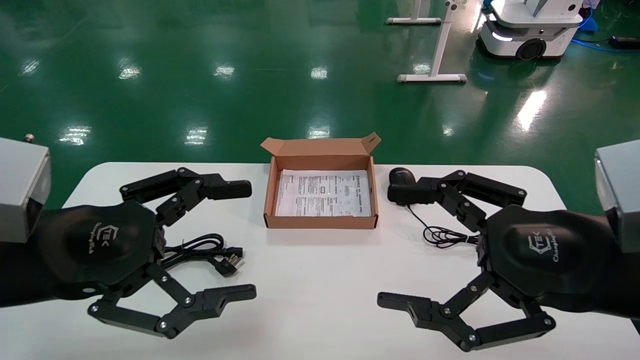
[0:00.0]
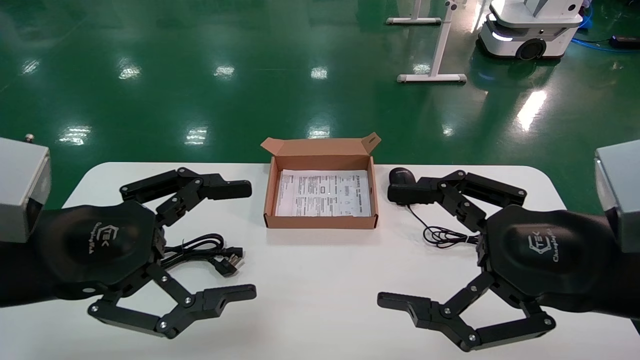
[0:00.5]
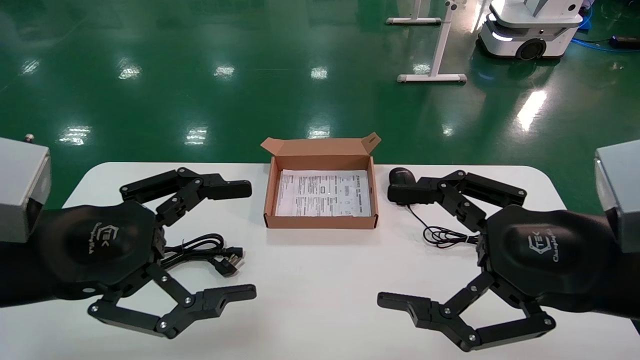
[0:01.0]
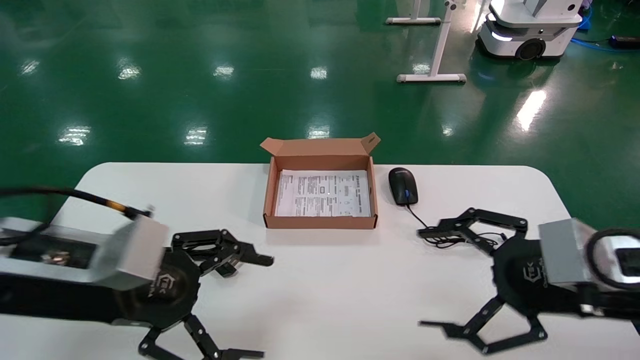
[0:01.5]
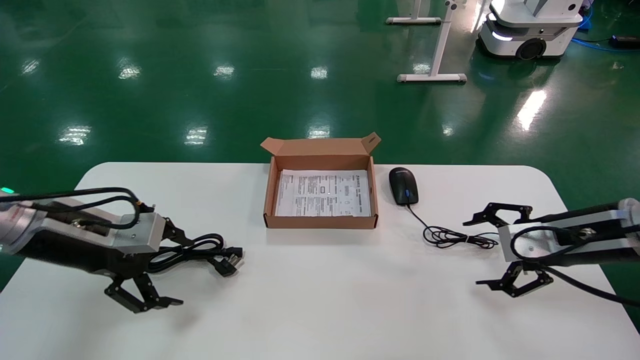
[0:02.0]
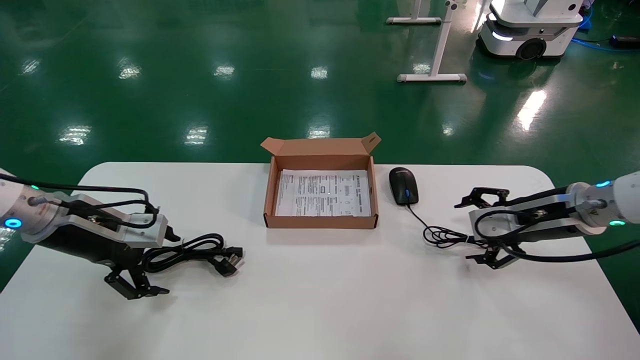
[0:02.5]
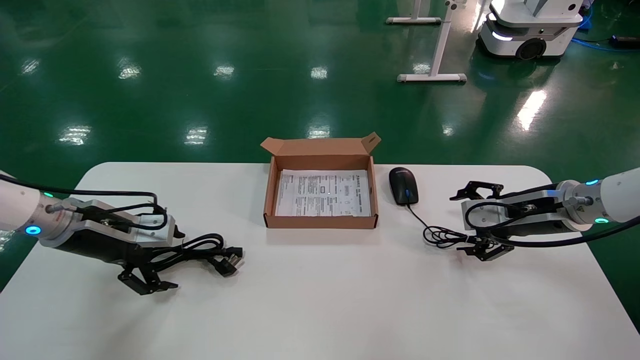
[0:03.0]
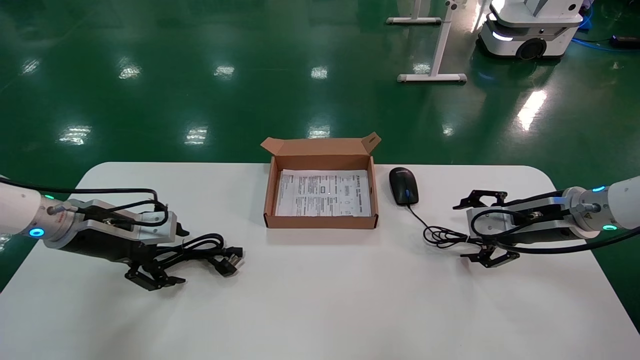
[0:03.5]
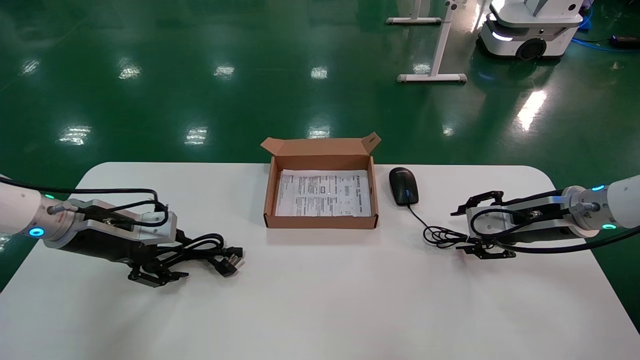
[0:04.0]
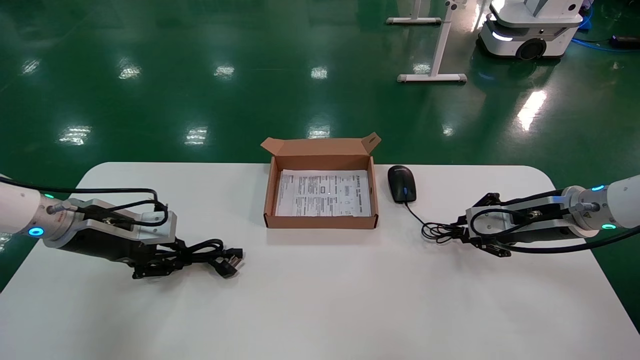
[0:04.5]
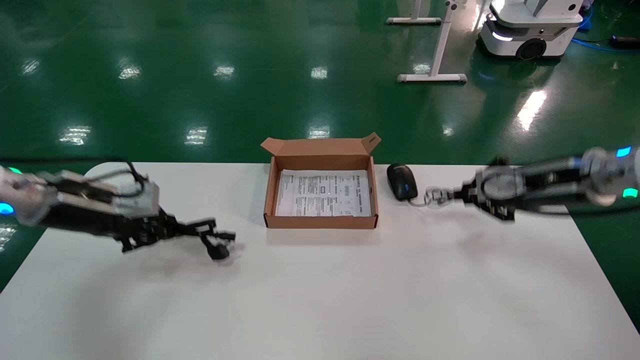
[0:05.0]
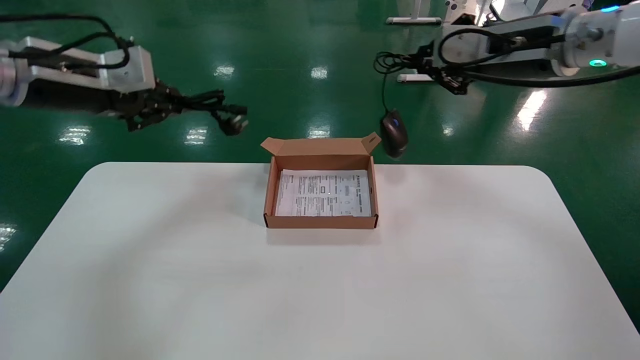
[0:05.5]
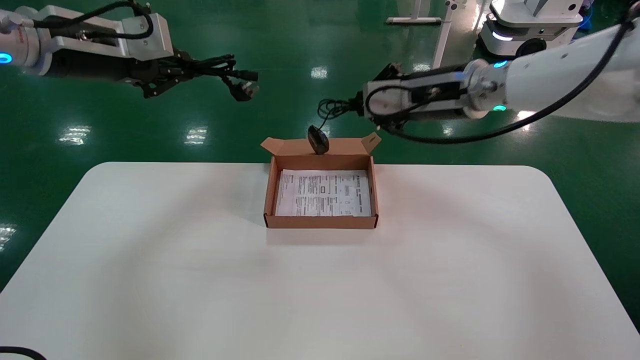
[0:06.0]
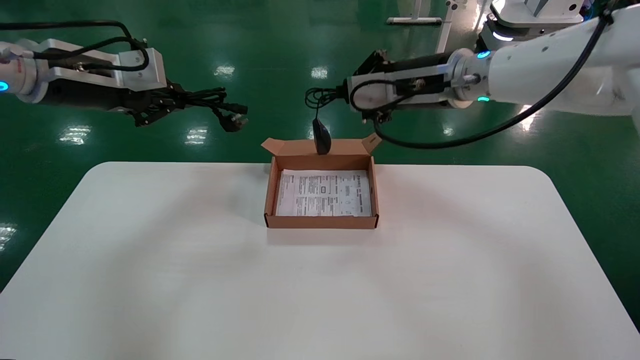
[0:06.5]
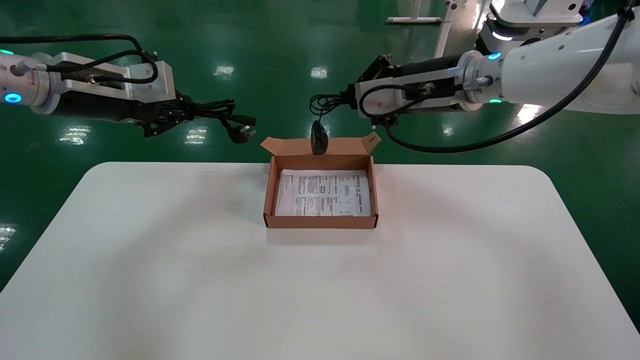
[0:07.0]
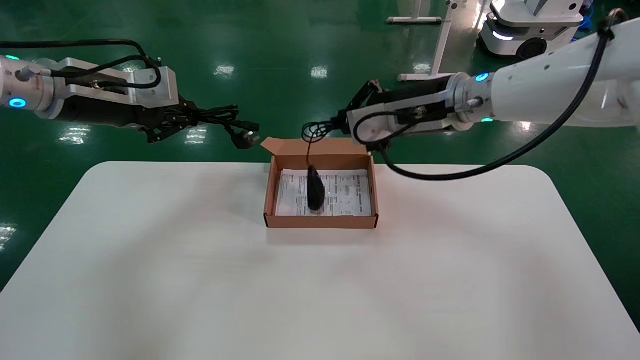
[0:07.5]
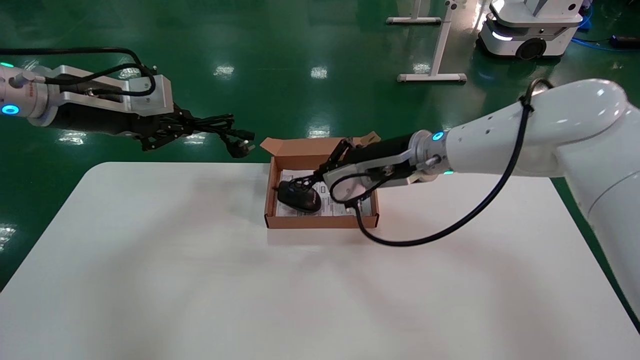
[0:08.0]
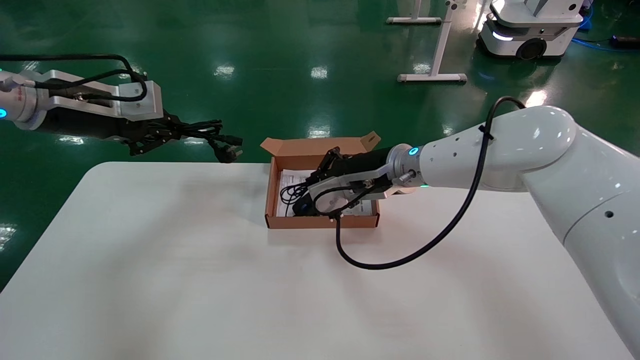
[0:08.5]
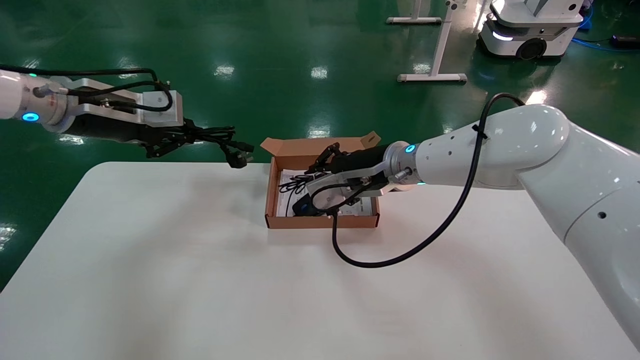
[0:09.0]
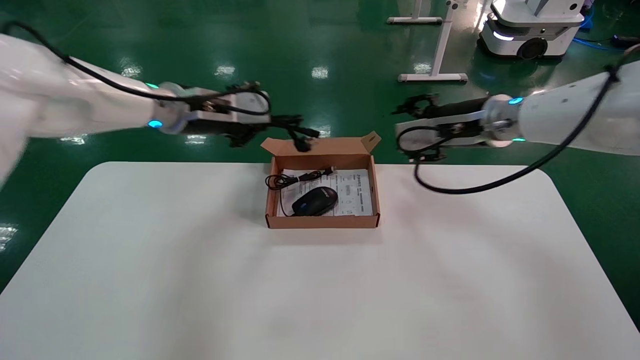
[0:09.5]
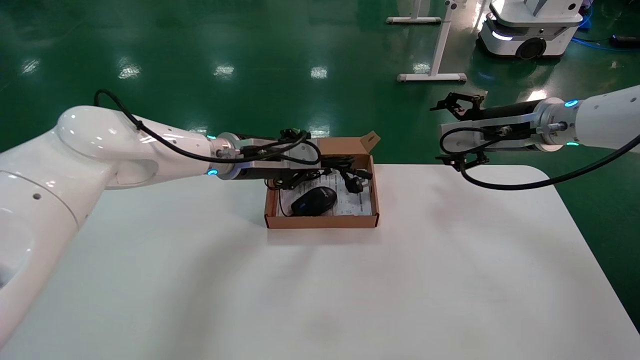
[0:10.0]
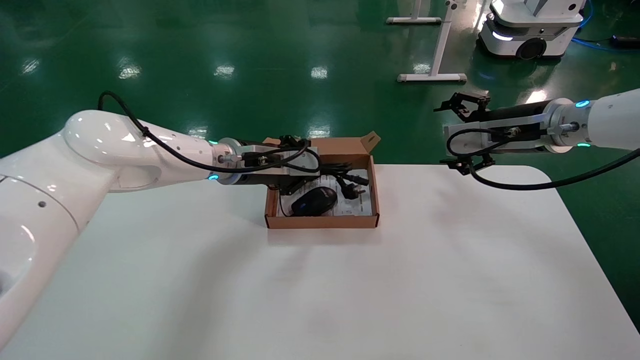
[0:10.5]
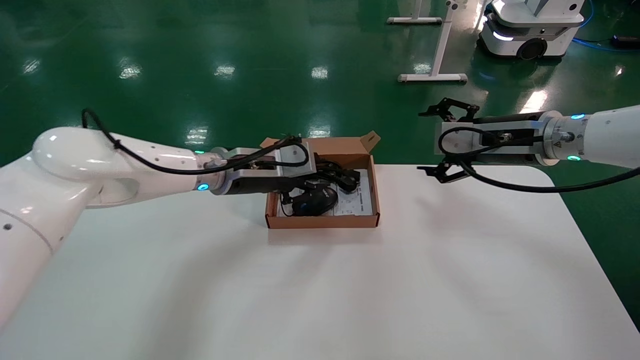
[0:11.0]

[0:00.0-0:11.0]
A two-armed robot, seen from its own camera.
Step, 0:02.0 to 0:04.5: Grab and lift both the mouse and power cord from the accessory packaging area at the same time.
Step, 0:05.0 to 0:10.5: Place the mouse and power cord into the box.
0:00.0 to 0:02.0: The right gripper goes approximately 20 cm forward and to the right, while the left gripper travels forward and to the left by roughly 15 cm.
0:02.0 to 0:03.5: The grippers both shift forward by about 5 cm.
0:03.5 to 0:05.5: The left gripper travels upward by some 20 cm, and closes its fingers. The right gripper heads upward and to the left, covering about 20 cm, and closes.
0:05.5 to 0:07.5: The right gripper is displaced to the left and downward by roughly 10 cm.
0:07.5 to 0:09.0: The right gripper goes some 10 cm downward and to the left.
0:09.0 to 0:11.0: The left gripper travels to the right and downward by about 20 cm; the right gripper shifts roughly 20 cm to the right, and opens its fingers.

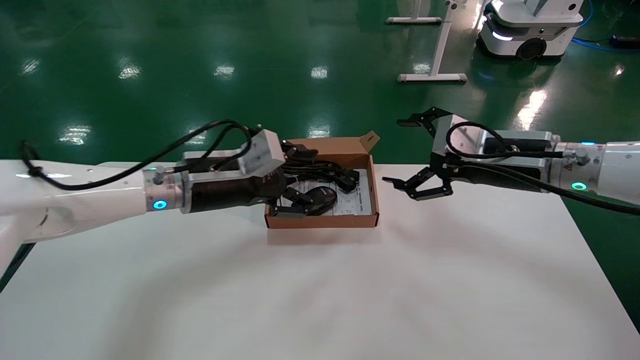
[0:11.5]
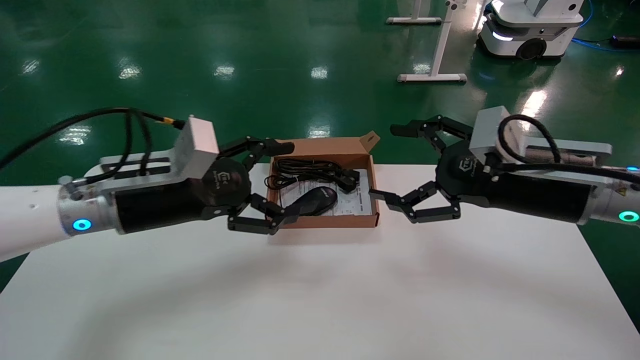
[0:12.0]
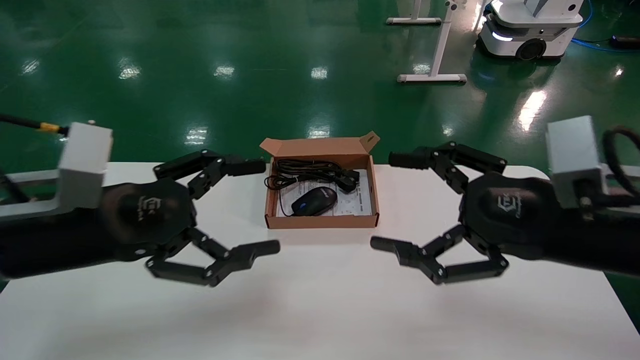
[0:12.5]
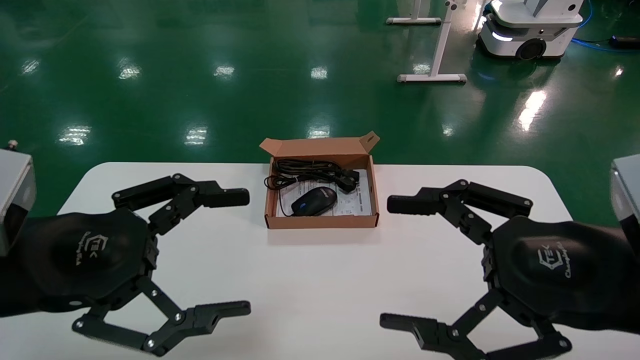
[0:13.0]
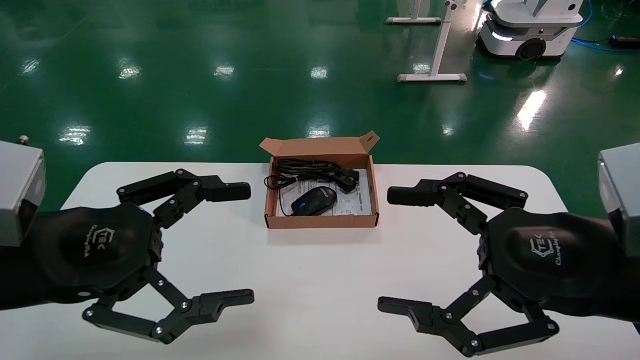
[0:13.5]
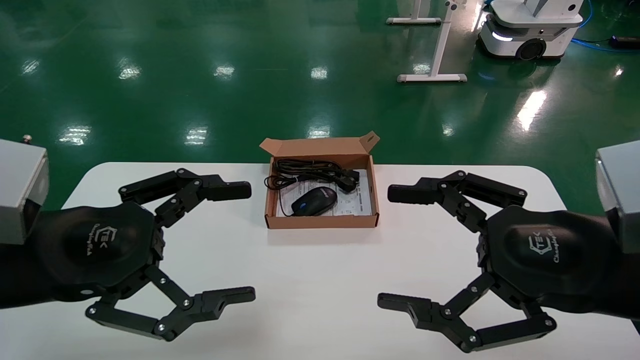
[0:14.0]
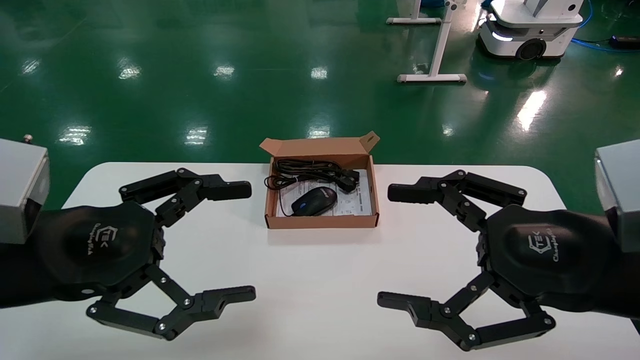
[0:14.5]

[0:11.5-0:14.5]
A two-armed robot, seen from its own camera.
0:11.5 to 0:13.0: The right gripper moves backward, about 20 cm. Meanwhile the left gripper heads backward and to the left, covering some 25 cm.
0:13.0 to 0:14.5: Both grippers stay about where they are.
